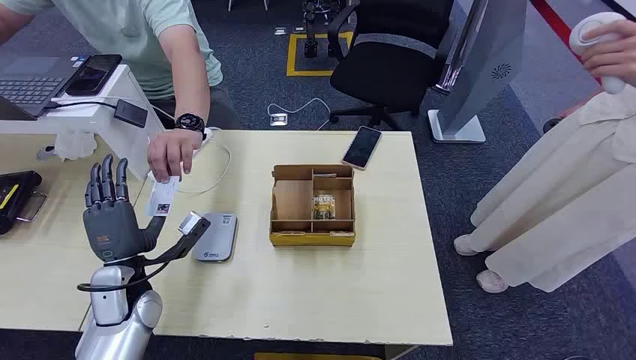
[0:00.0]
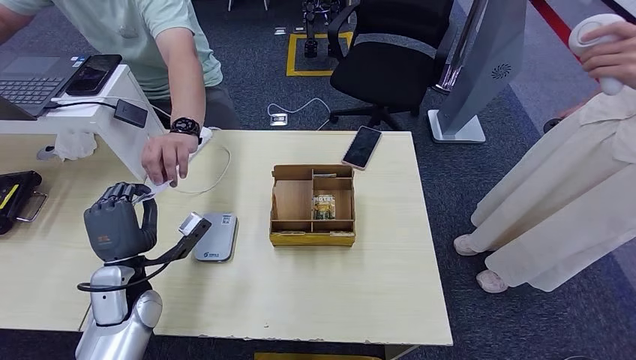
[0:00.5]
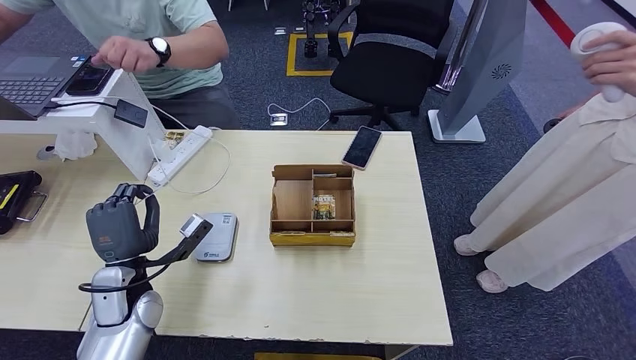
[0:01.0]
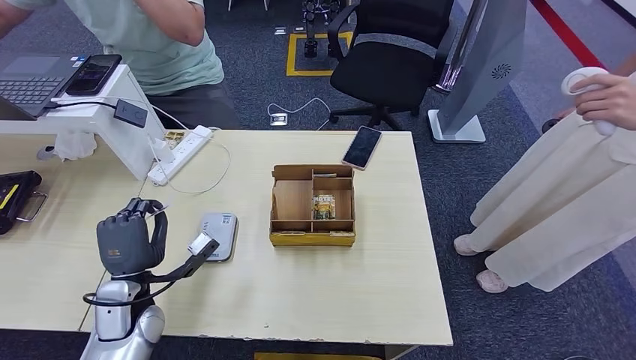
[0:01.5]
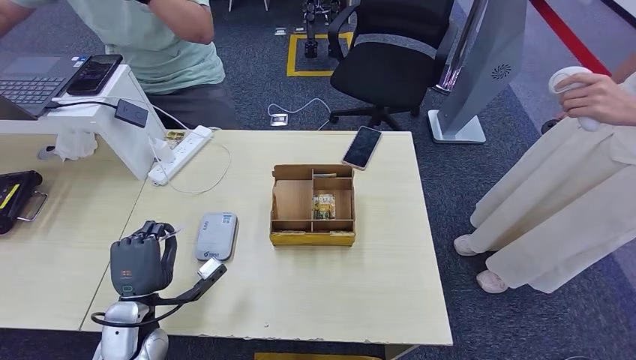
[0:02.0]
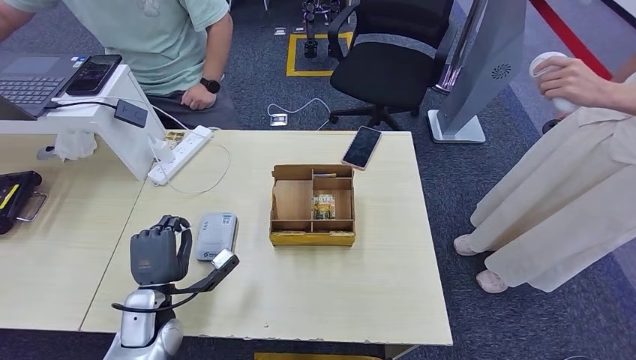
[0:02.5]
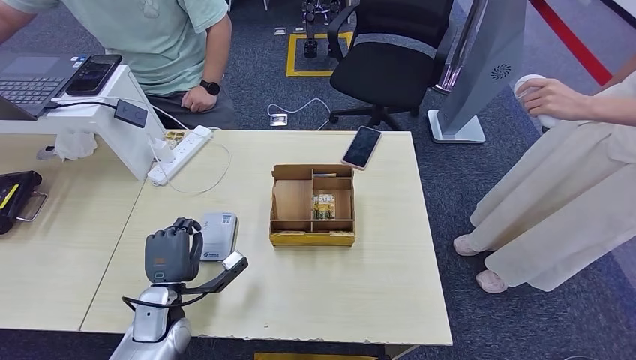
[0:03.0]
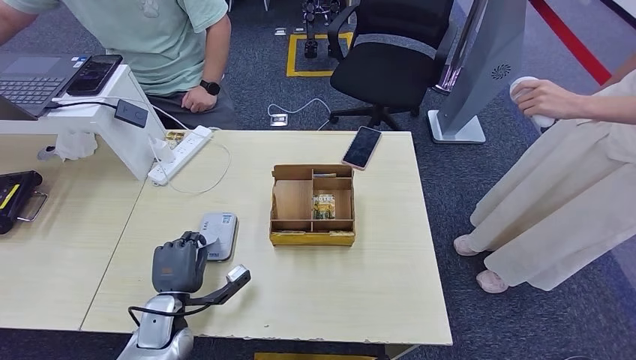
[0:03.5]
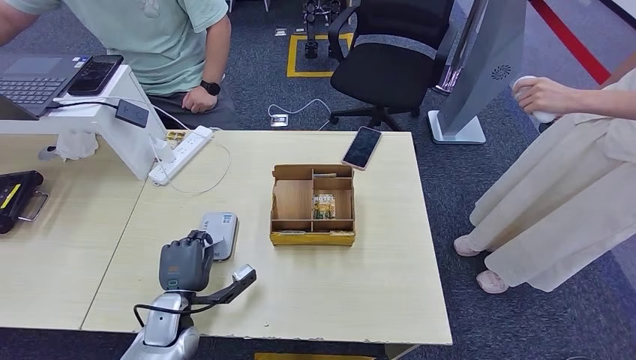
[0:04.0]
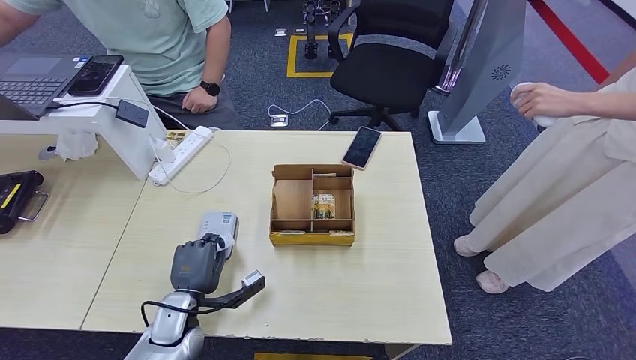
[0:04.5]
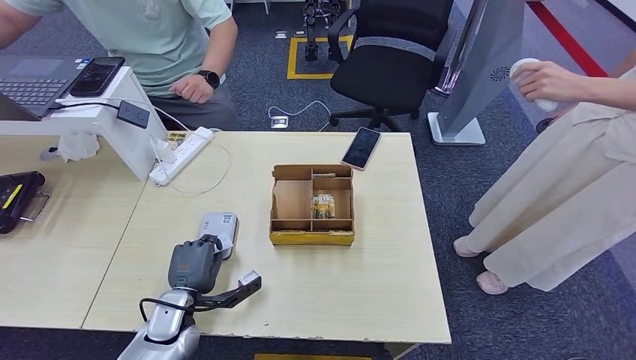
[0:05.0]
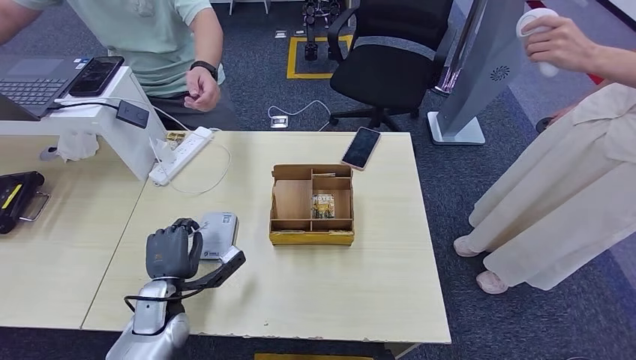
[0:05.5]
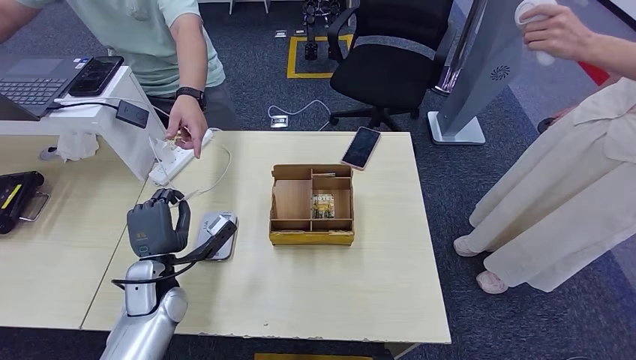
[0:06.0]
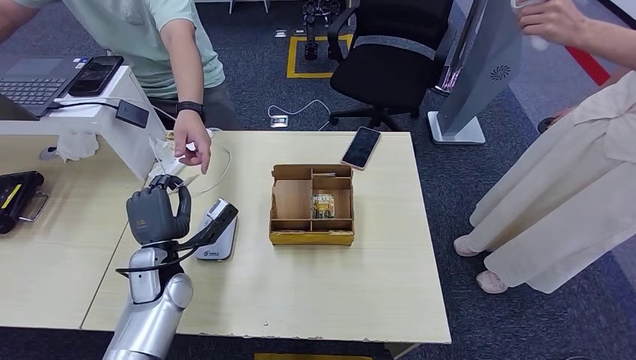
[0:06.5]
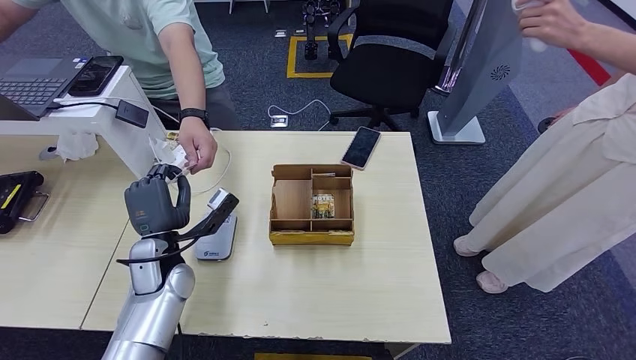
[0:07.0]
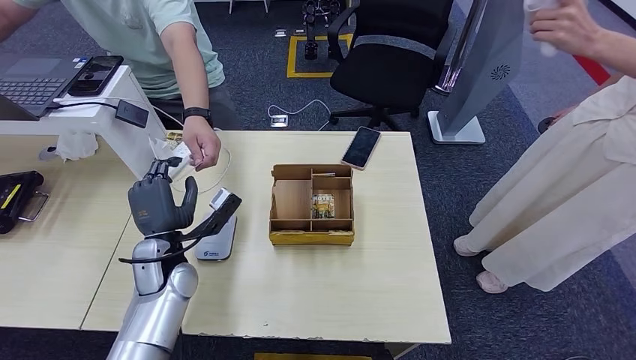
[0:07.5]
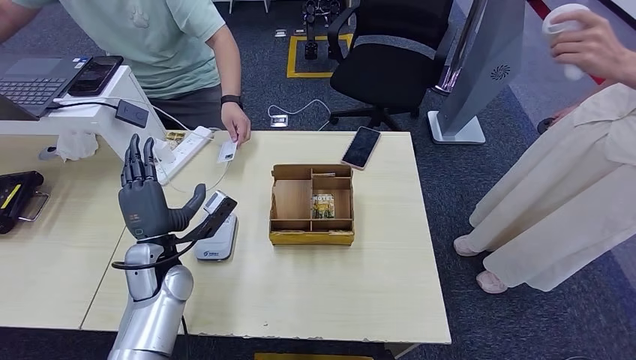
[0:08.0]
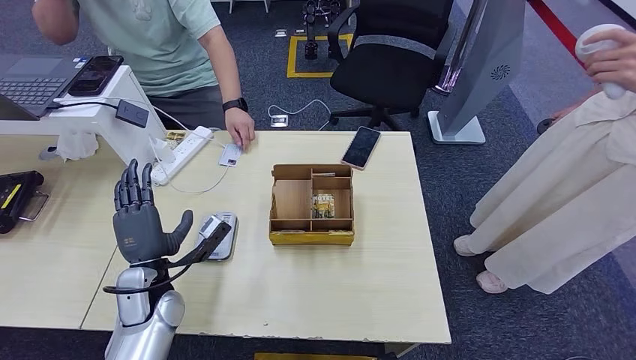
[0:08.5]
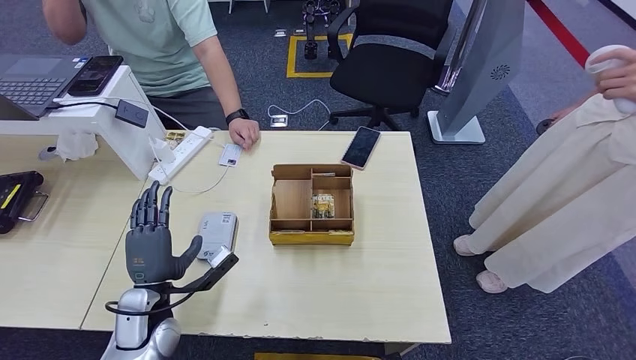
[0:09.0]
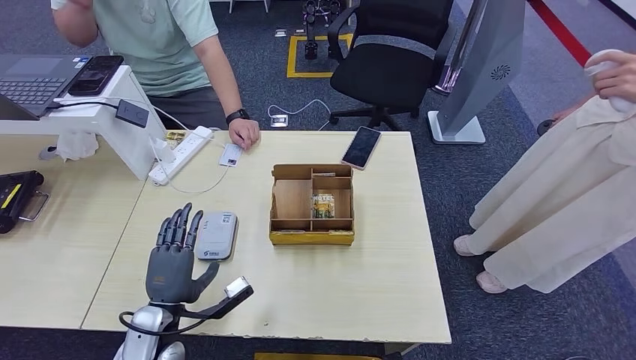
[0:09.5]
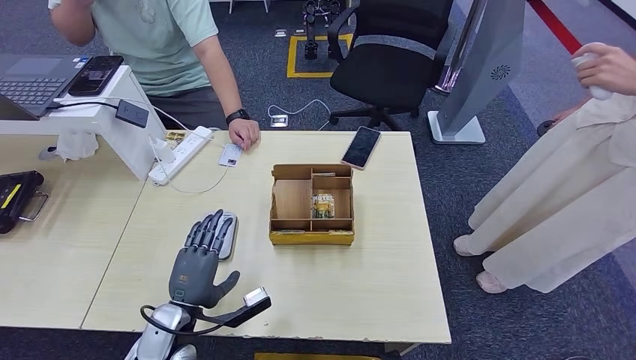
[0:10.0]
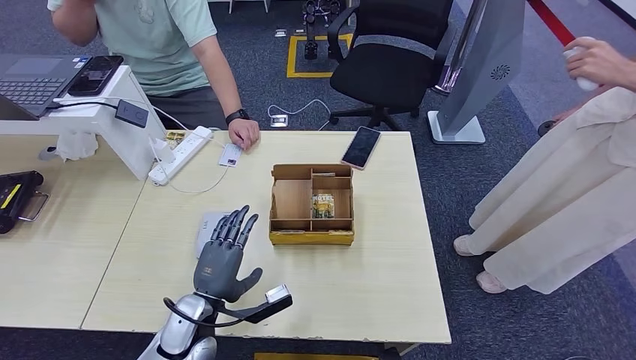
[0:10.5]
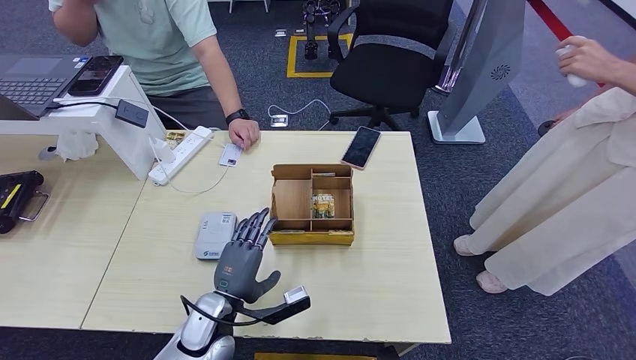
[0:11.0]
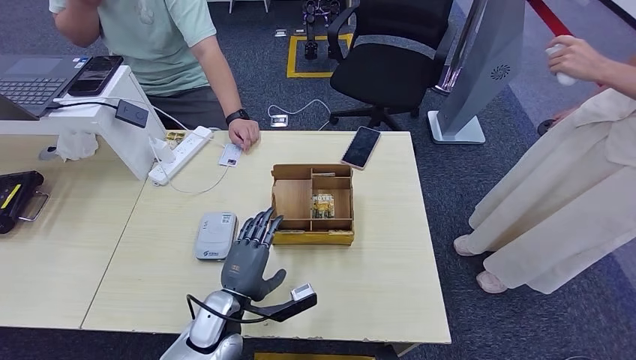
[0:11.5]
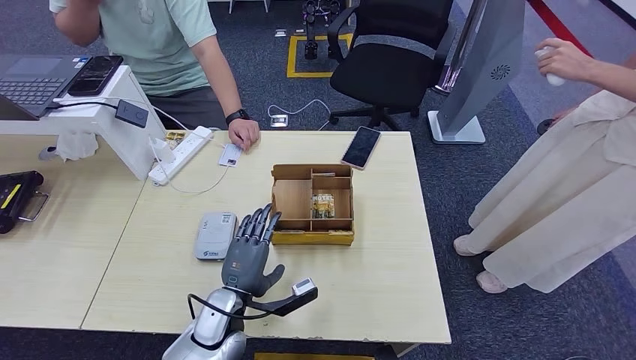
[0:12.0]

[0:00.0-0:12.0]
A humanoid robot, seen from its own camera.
Step, 0:00.0 to 0:01.0: Take the ID card from the person's hand.
Step, 0:01.5 to 0:05.0: Place the ID card on the card reader.
Step, 0:06.0 to 0:07.5: Hand the ID card to the person.
0:02.0 to 0:04.0: The left hand travels downward by about 5 cm.
0:04.0 to 0:06.0: The left hand moves upward, approximately 5 cm.
0:06.0 to 0:08.0: The left hand changes place by approximately 5 cm.
0:08.0 to 0:10.0: The left hand travels backward and downward by approximately 15 cm.
0:10.0 to 0:12.0: The left hand travels to the right by roughly 10 cm.

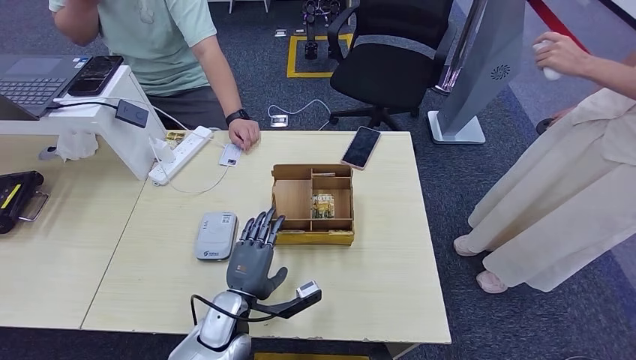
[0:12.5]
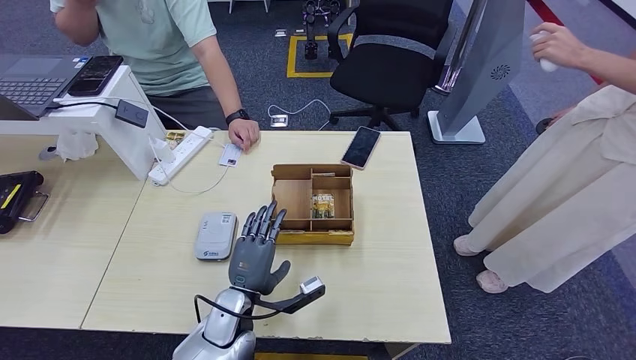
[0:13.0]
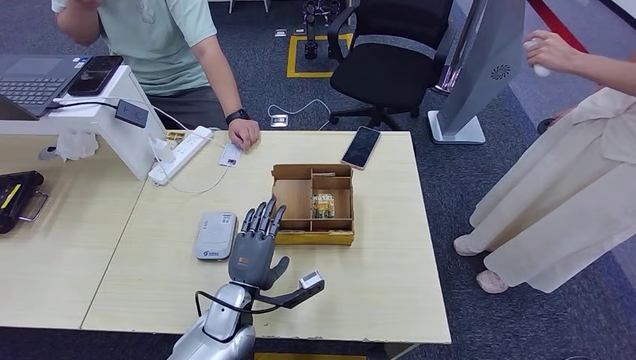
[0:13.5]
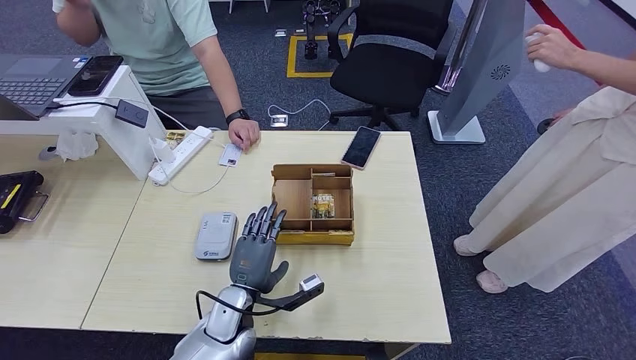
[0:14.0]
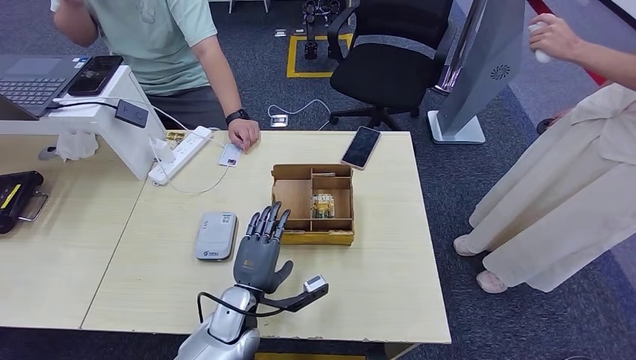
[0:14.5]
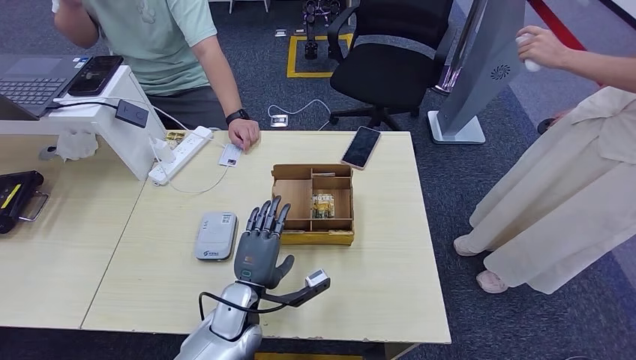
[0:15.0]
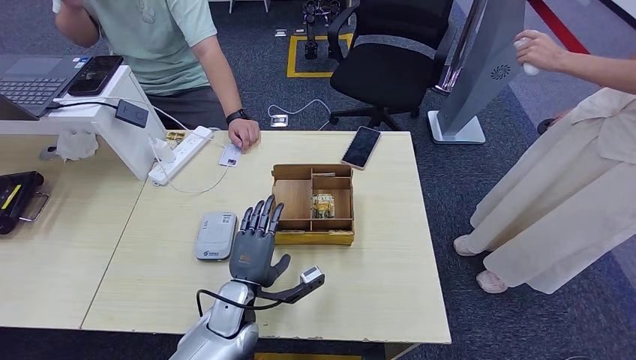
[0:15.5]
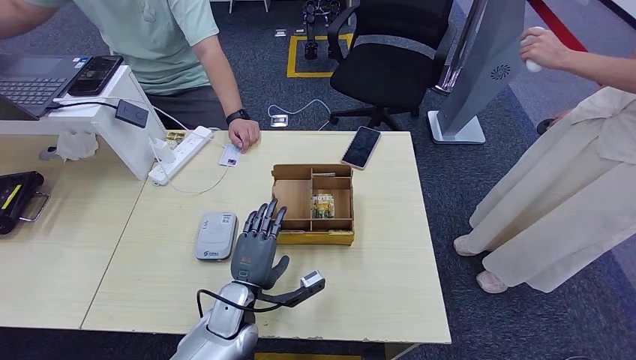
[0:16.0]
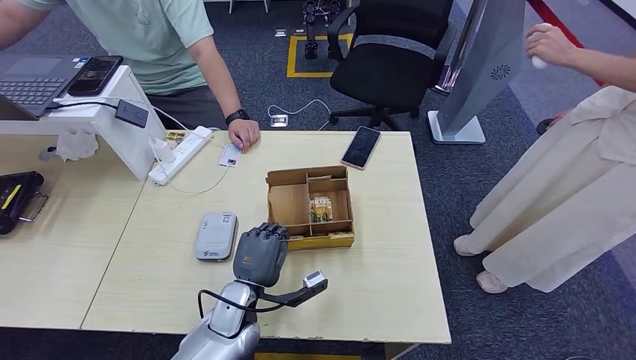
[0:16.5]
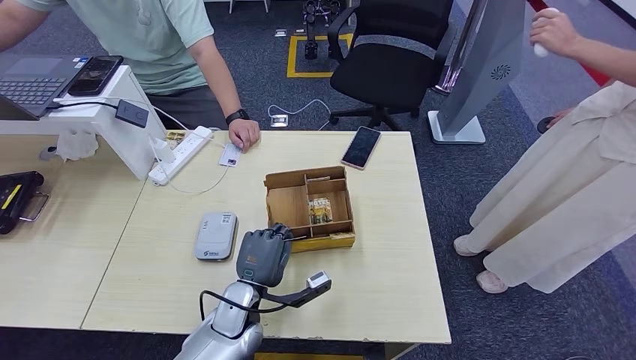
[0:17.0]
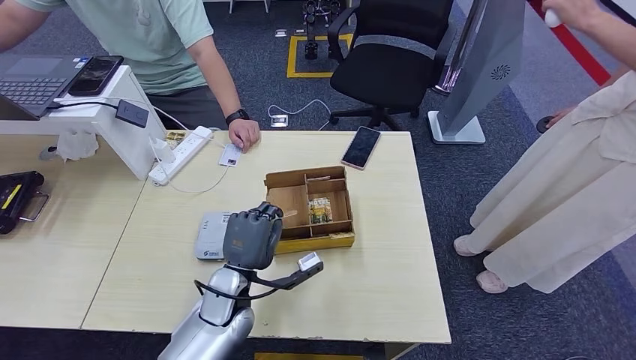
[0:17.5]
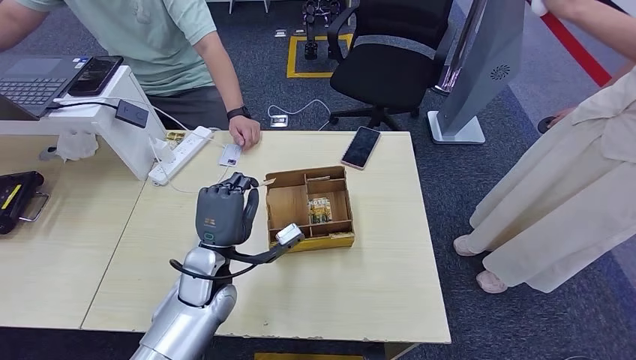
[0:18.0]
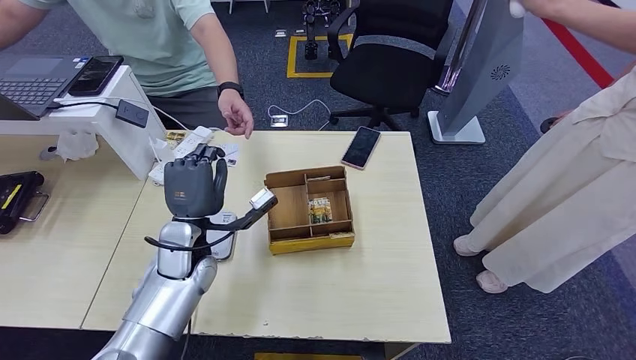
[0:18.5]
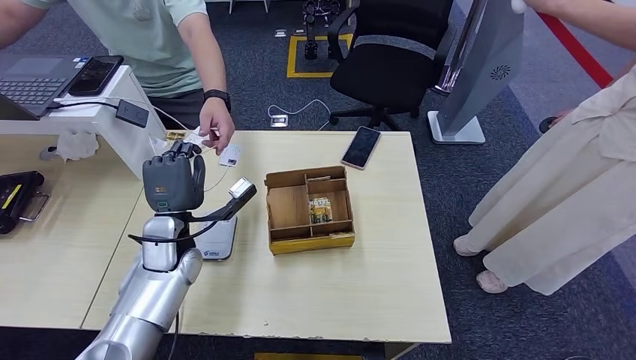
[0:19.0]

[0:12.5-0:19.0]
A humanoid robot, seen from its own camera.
Step, 0:16.0 to 0:18.0: Pick up the room key from the key card box.
Step, 0:18.5 to 0:19.0: Hand the room key to the person.
0:12.5 to 0:14.5: The hands move only a little.
0:14.5 to 0:17.0: Neither hand changes place.
0:17.0 to 0:19.0: The left hand heads to the left, upward and forward, covering roughly 20 cm.
